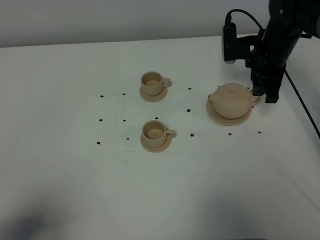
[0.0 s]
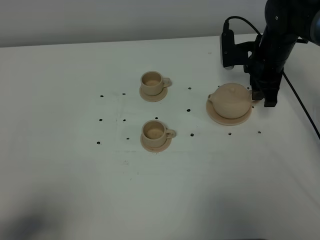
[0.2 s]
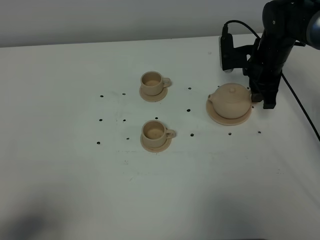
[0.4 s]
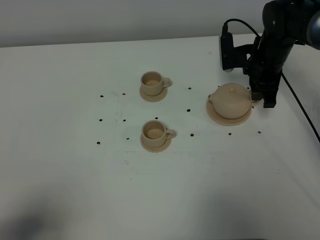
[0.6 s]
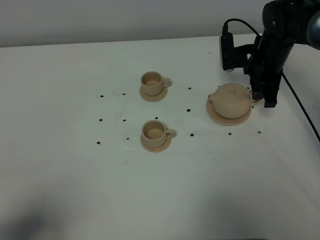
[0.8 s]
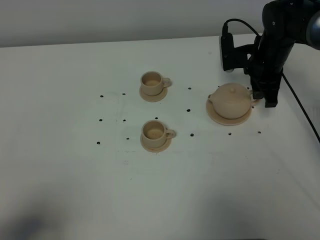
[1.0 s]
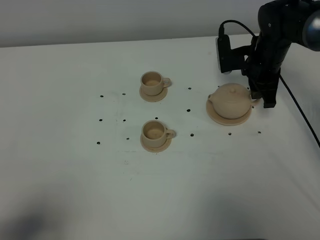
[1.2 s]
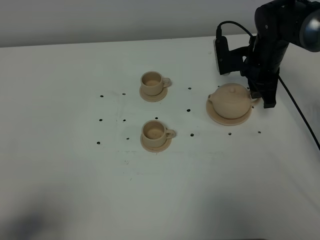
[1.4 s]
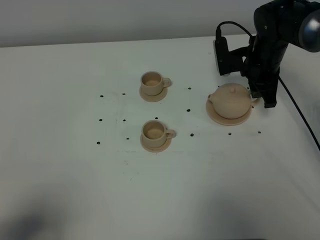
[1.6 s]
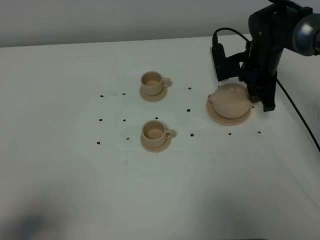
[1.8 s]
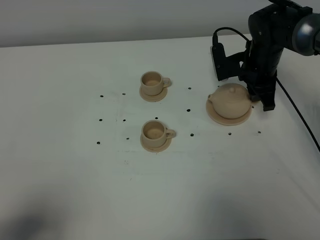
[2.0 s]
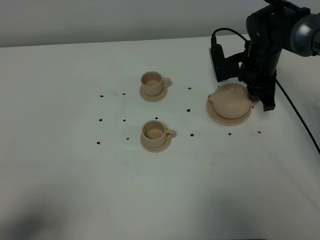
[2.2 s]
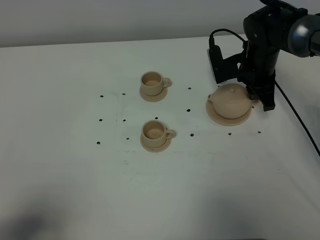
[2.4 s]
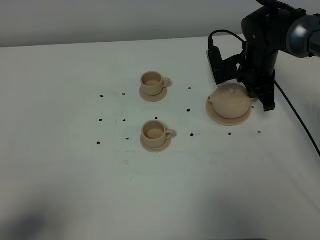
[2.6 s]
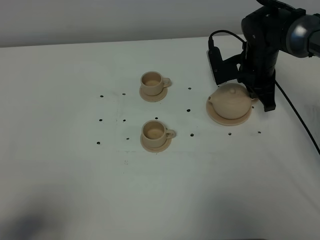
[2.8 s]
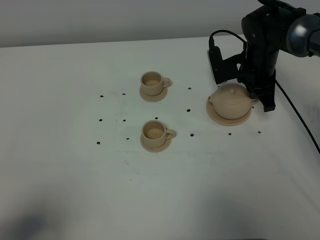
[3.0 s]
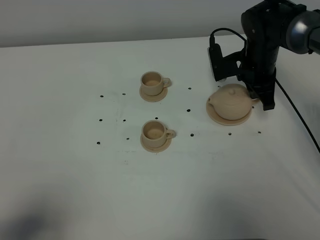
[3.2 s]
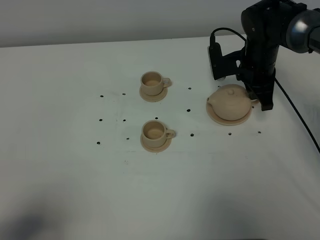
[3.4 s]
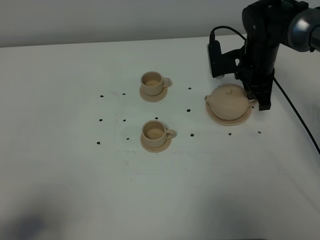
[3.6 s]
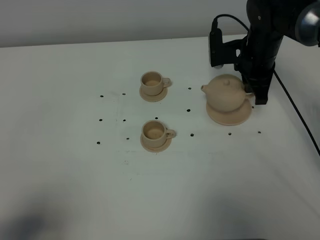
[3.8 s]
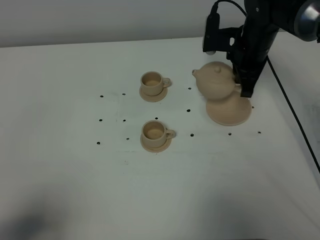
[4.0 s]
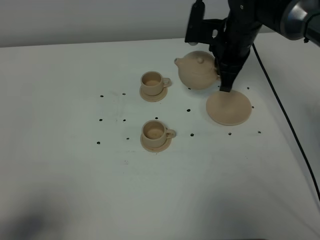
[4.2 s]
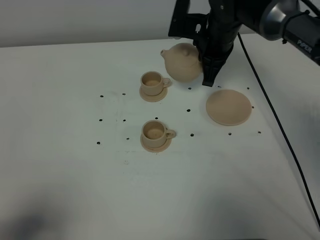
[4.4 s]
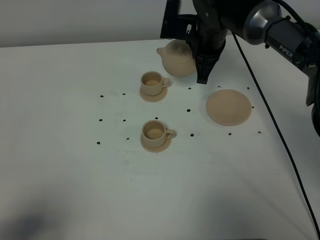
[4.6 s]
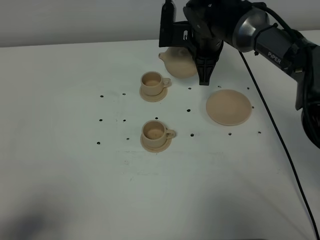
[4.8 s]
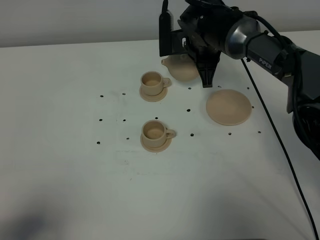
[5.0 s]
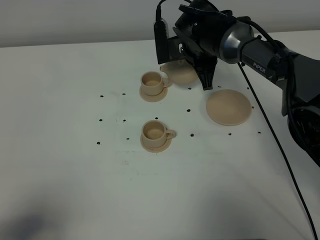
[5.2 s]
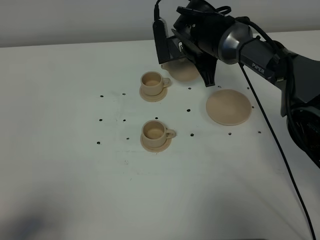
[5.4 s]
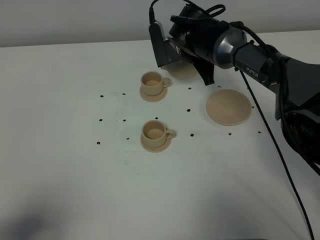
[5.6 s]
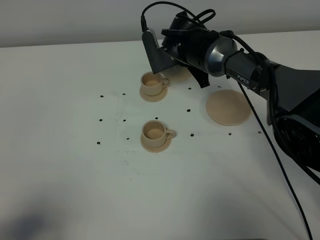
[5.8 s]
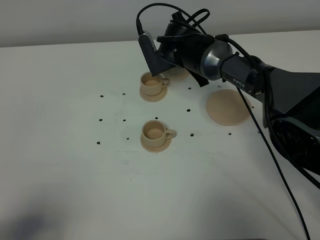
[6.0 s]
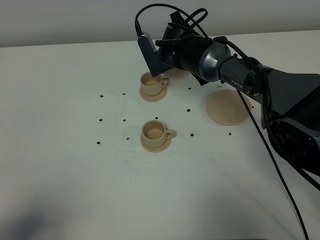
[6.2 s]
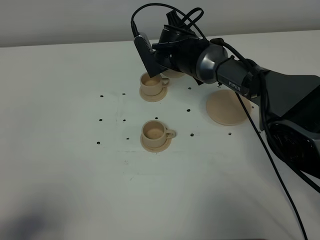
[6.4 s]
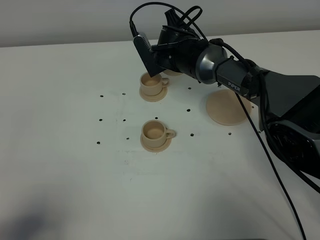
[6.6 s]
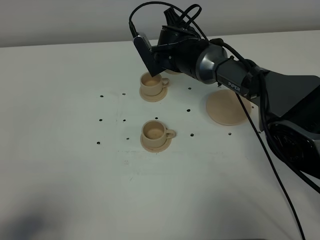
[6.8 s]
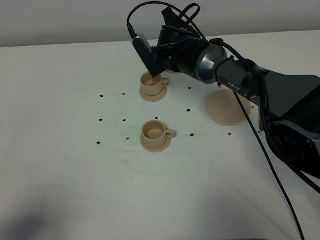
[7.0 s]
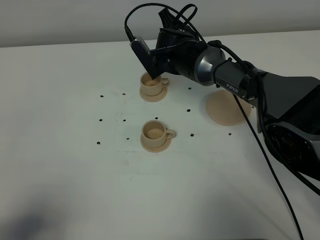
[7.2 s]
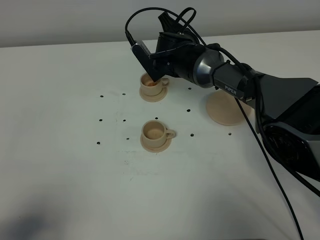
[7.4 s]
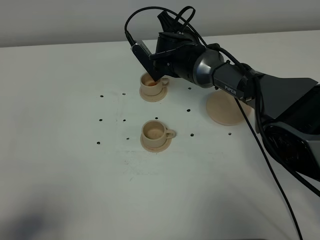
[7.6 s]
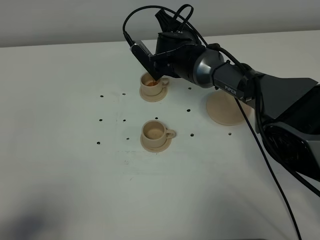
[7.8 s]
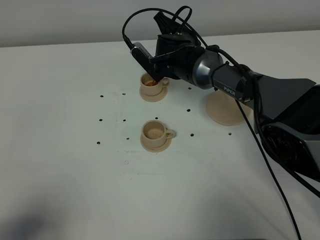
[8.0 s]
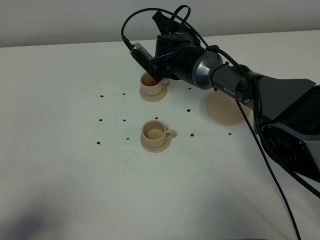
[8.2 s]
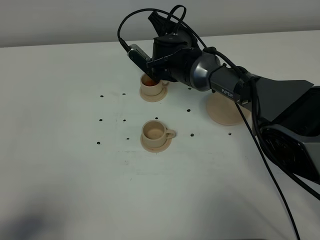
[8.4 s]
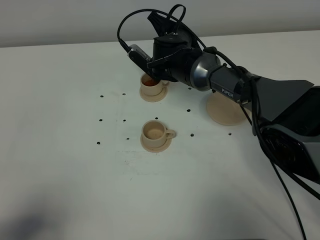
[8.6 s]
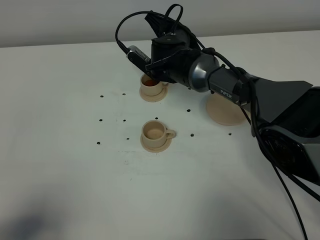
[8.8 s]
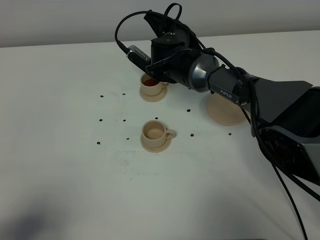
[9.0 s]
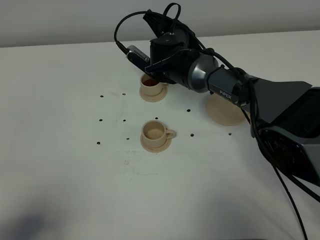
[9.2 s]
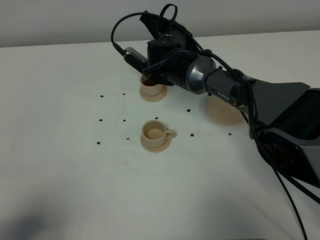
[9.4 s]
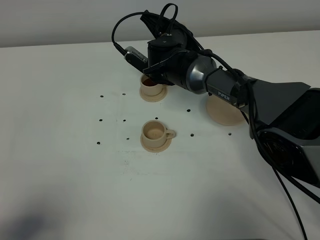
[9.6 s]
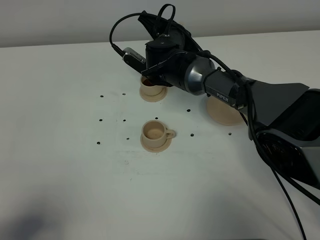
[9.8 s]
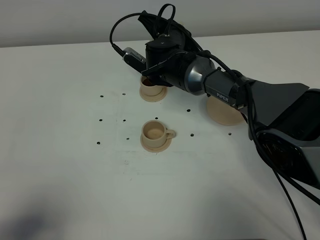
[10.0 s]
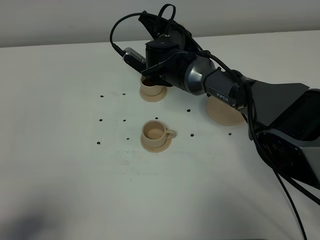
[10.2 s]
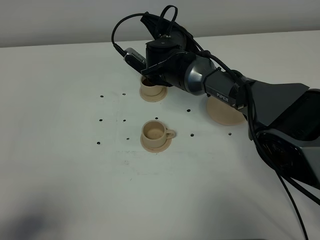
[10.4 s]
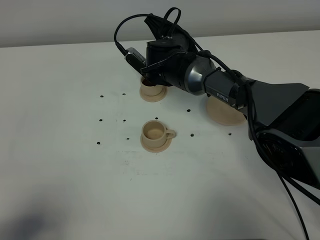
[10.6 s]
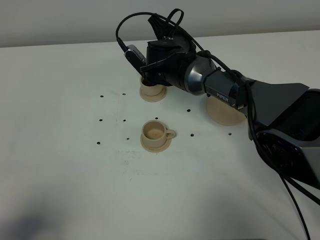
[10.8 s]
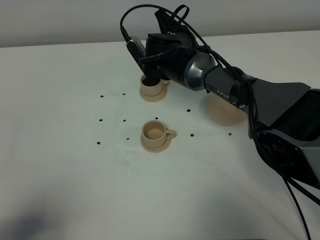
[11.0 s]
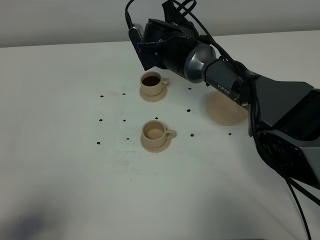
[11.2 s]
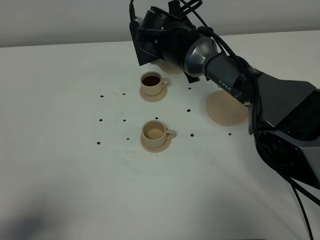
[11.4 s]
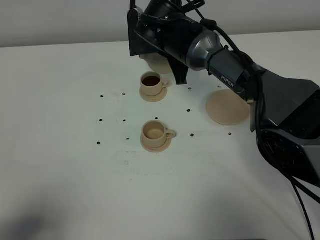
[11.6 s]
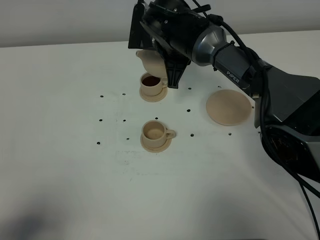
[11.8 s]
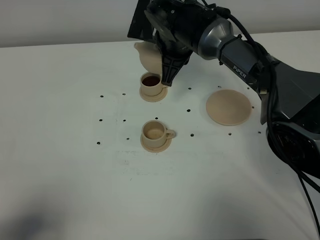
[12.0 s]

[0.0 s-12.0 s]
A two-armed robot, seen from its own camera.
Task of the whole recording: grasp the brown teapot and pour the tea into the two brown teacups one by one, put the brown teapot back in its original place.
Step, 0.0 to 3.4 s: Pick up the teapot with the right gripper.
0.0 to 1.6 s: There are only small adjustments of the grippers.
1.6 to 3.0 s: The right gripper closes up.
3.0 to 4.4 s: The right gripper is displaced to the left and upward by approximately 10 cm.
4.4 to 6.0 s: The right gripper heads downward and to the left, covering roughly 10 cm.
6.0 to 7.6 s: The grippers stay close to where they were, moving slightly.
7.6 to 9.0 s: There are only small adjustments of the grippers.
9.0 to 10.4 s: Both grippers stay put.
10.4 to 12.0 s: The right gripper moves upward, roughly 5 cm.

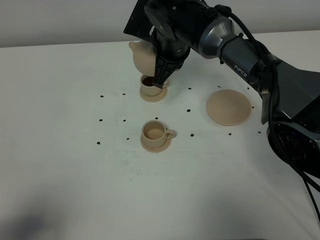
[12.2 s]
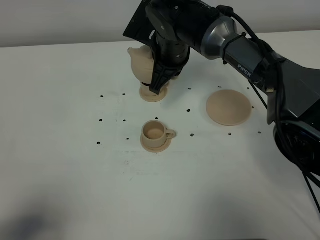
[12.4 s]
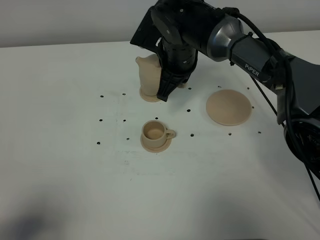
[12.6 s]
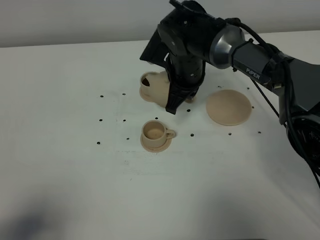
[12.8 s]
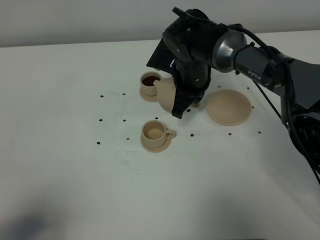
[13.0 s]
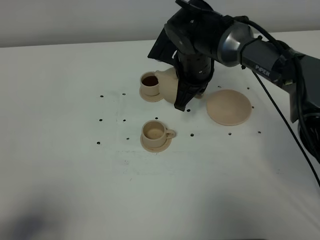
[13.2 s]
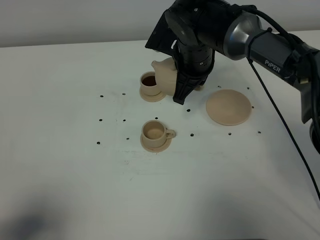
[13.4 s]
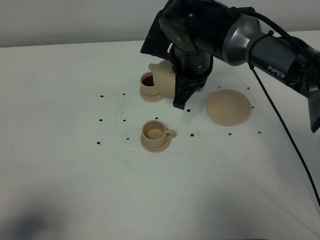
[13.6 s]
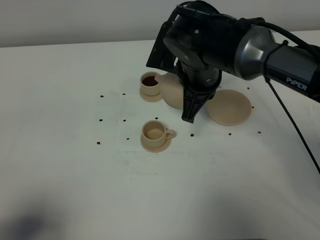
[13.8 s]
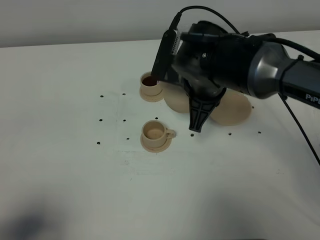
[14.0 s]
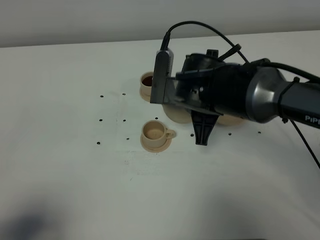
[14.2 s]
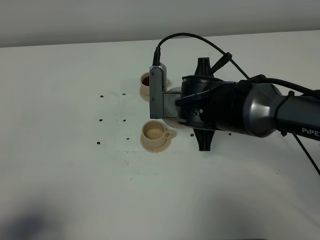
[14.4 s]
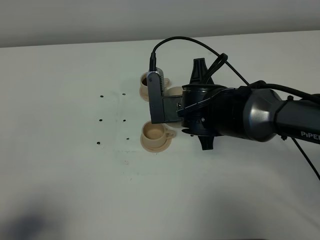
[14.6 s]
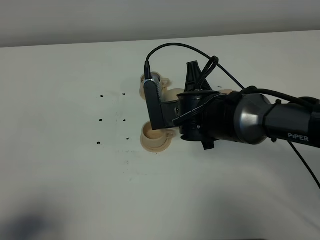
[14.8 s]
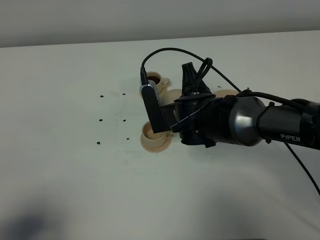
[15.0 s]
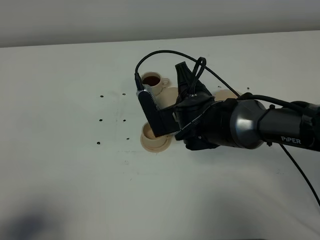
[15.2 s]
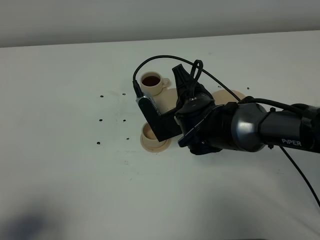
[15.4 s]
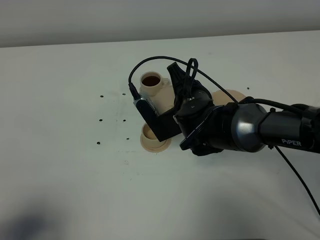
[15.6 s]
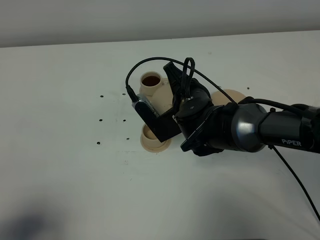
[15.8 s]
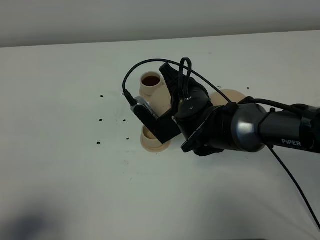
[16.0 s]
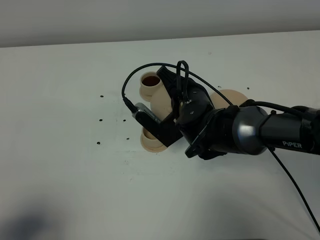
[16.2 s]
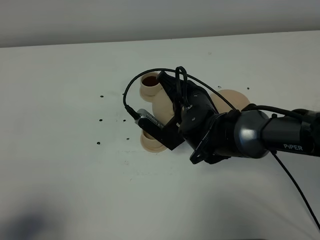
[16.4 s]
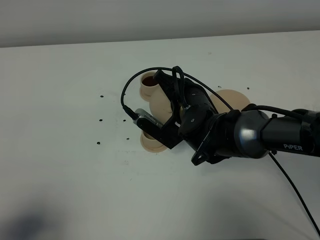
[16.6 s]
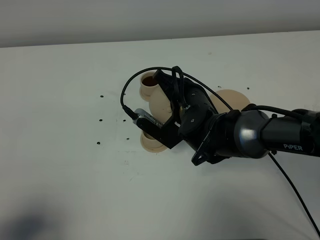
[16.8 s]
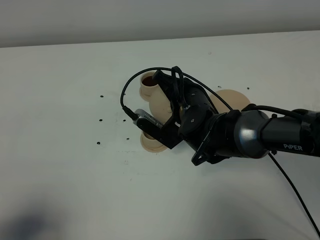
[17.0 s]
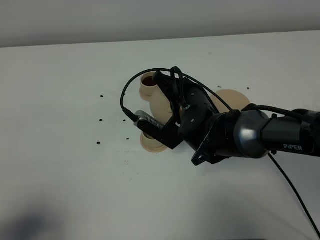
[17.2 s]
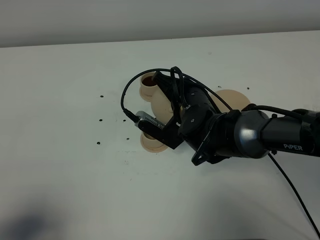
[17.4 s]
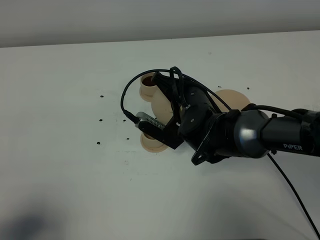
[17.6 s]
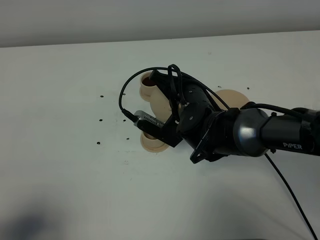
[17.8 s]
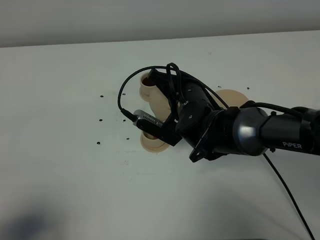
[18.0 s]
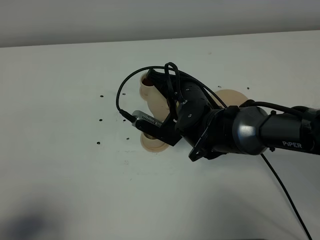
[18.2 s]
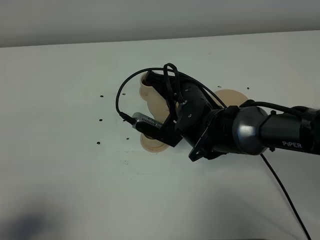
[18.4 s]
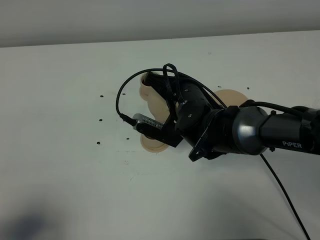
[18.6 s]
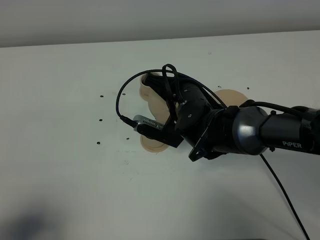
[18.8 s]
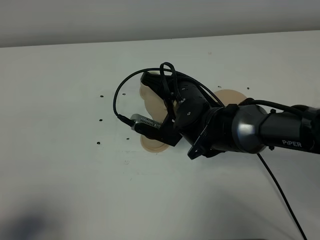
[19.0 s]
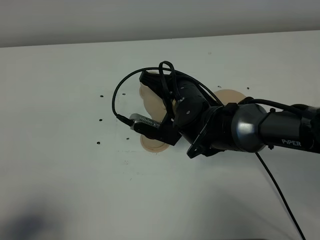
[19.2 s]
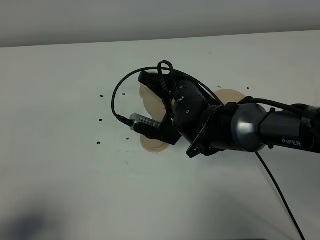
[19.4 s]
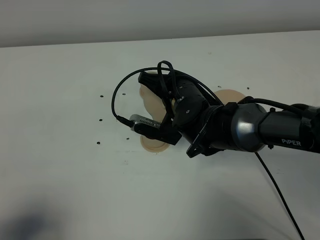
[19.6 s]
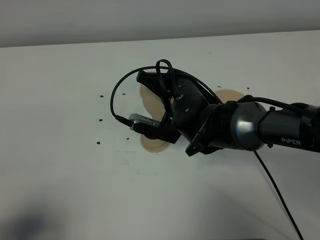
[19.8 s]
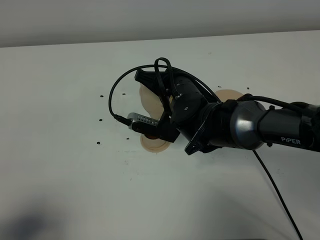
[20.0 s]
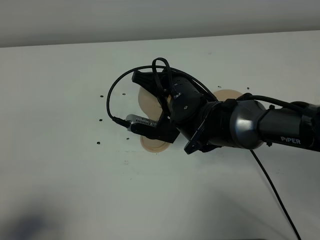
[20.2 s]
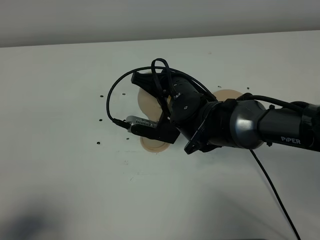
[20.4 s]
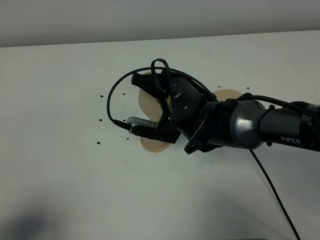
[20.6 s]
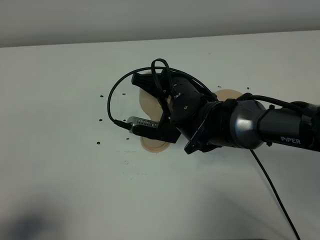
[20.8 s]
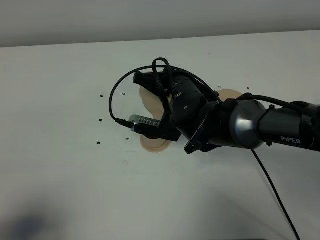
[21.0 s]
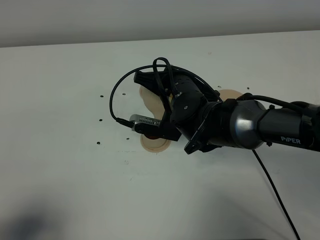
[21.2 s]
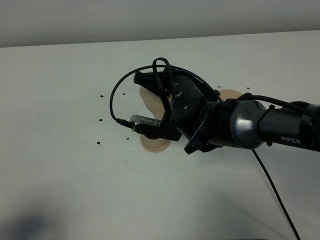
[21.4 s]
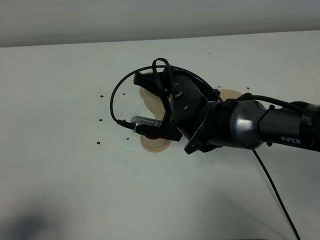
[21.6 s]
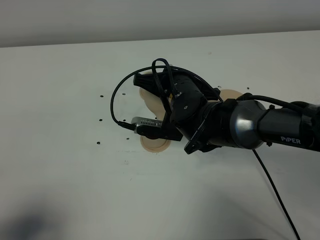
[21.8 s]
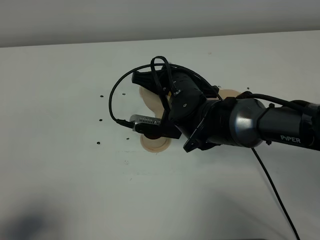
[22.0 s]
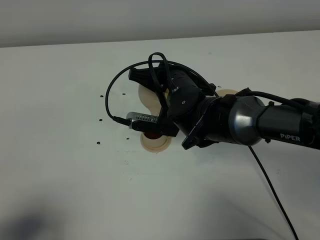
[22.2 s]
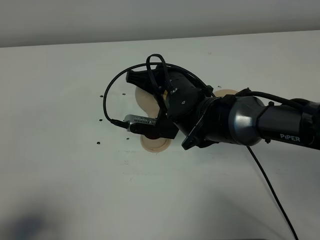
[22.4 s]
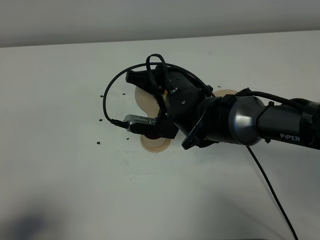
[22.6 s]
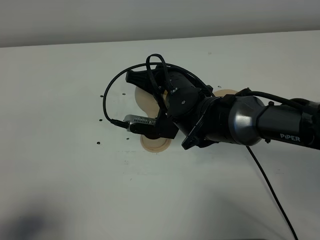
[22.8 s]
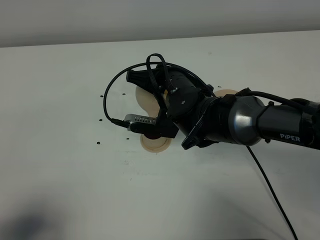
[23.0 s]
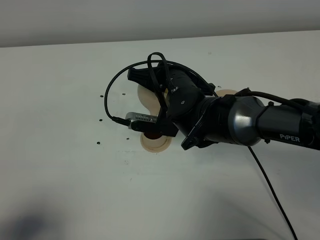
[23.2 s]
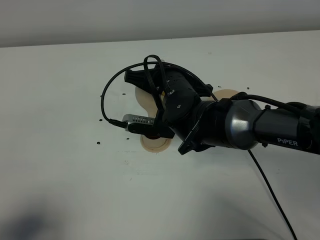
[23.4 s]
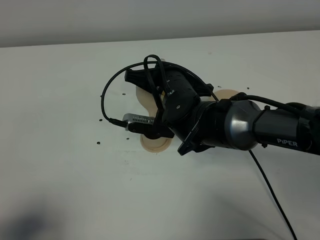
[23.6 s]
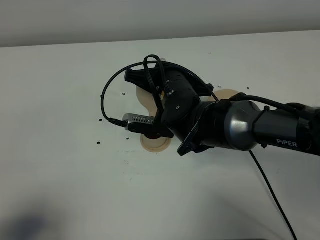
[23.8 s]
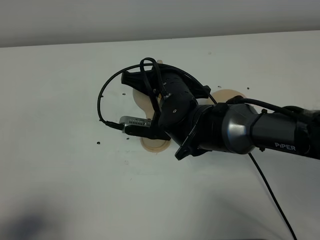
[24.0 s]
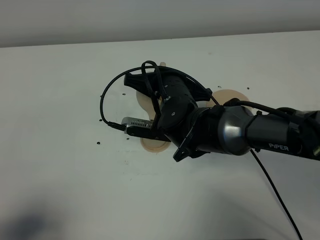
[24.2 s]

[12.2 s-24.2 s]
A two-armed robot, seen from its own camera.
Task of the whole recording: grasp the brown teapot and pour the tea into the two brown teacups one by one, put the brown teapot back in its original place.
12.2 to 13.8 s: The right gripper shifts roughly 10 cm backward.
13.8 to 15.2 s: The right gripper moves downward, approximately 10 cm.
16.6 to 19.8 s: The grippers move only a little.
19.8 to 21.2 s: The grippers make only small movements.
21.2 to 22.6 s: Both grippers stay put.
22.6 to 24.2 s: The grippers stay close to where they were, moving slightly.
